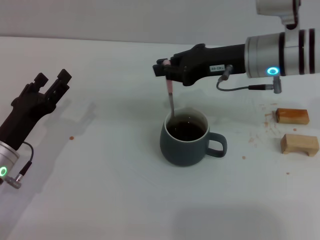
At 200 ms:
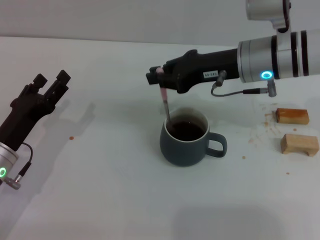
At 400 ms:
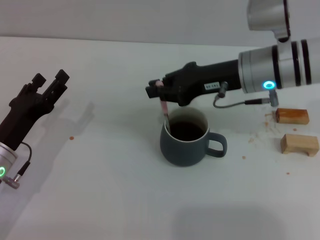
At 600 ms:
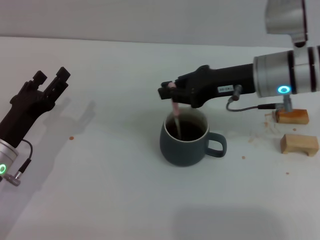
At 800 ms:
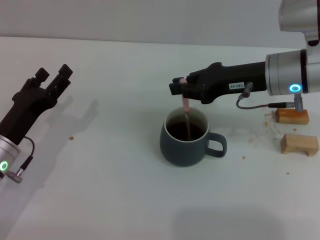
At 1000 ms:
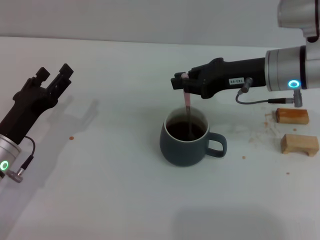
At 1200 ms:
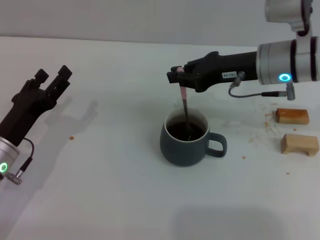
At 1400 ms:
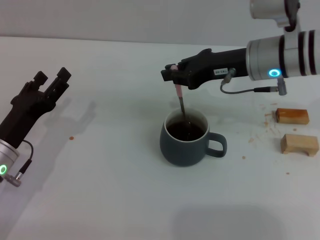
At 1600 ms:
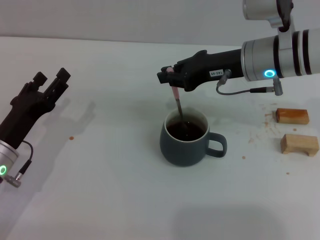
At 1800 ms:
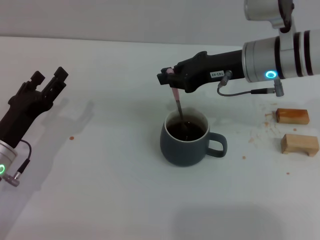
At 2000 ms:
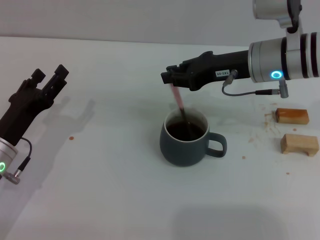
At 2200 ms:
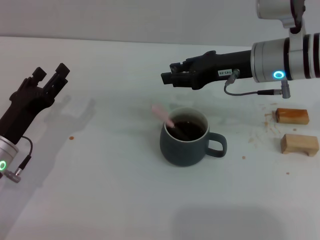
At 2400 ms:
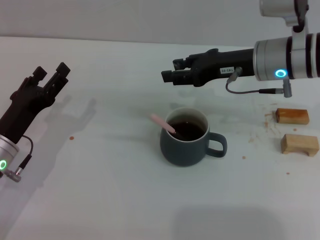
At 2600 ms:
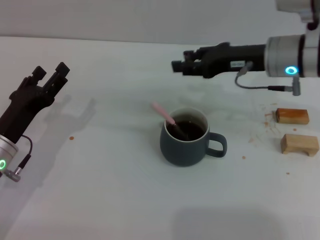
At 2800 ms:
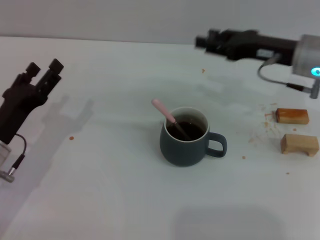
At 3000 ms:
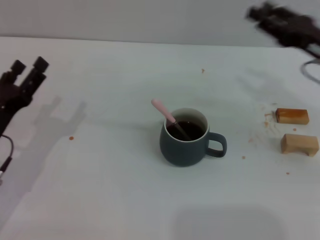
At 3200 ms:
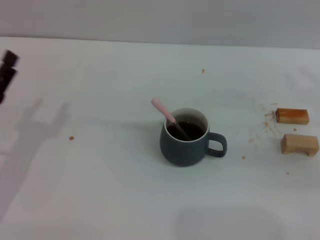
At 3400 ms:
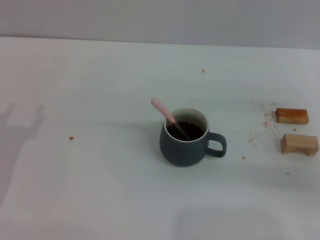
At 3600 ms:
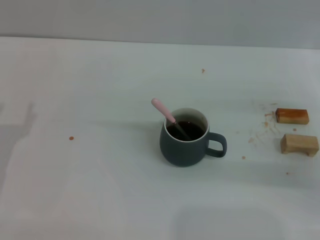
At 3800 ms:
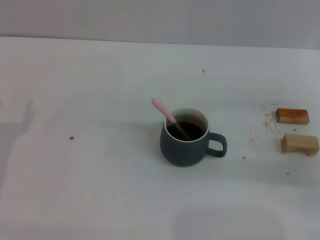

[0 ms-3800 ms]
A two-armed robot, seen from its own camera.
Task of the whole recording: Move the grey cup to the center, lift the pink spoon, stir it three times in the cup, and put the spoon into the cup.
Step, 0 ms to 2600 ms: Stir the coffee in the cup with the right gripper.
0 ms to 1200 ms: The grippers stay close to where they were, moving slightly.
1200 ms to 2600 ms: The right gripper opens its fingers.
2600 ms to 3800 ms: The right gripper is displaced to the right, backward and downward by roughly 20 cm. Meanwhile the left gripper shifts approximately 5 cm to the left.
